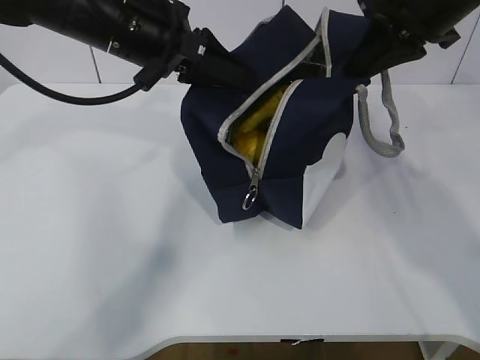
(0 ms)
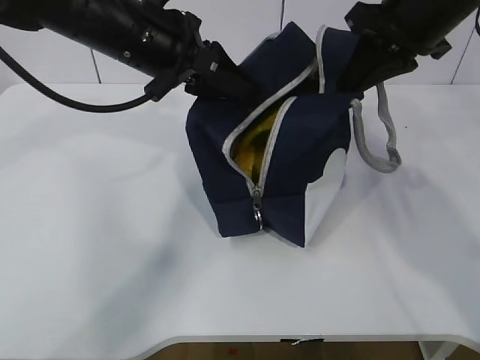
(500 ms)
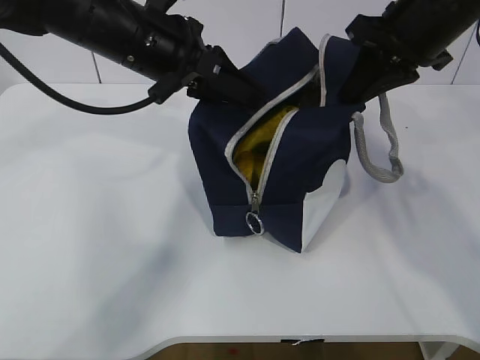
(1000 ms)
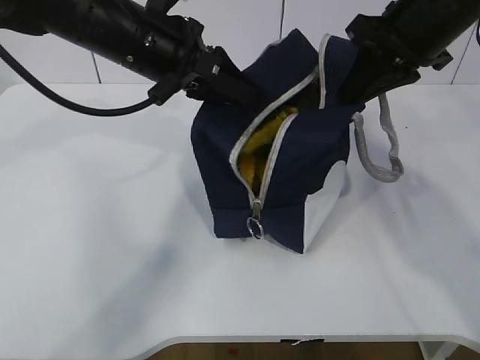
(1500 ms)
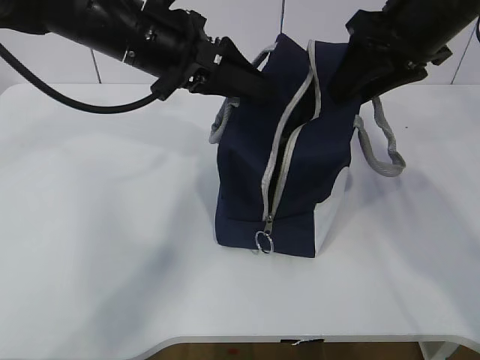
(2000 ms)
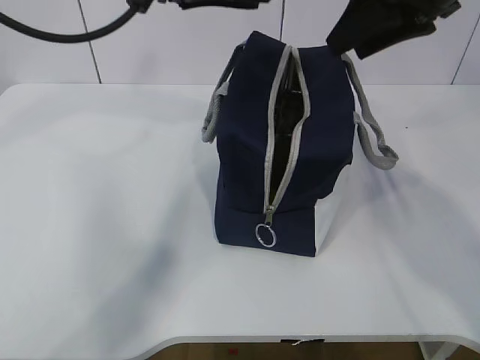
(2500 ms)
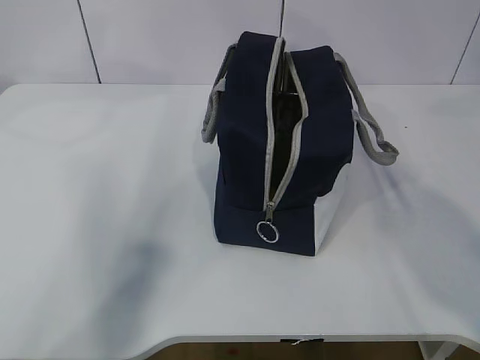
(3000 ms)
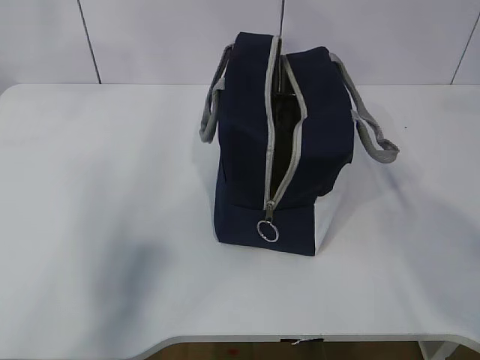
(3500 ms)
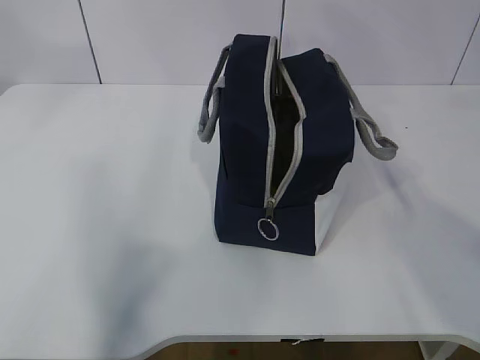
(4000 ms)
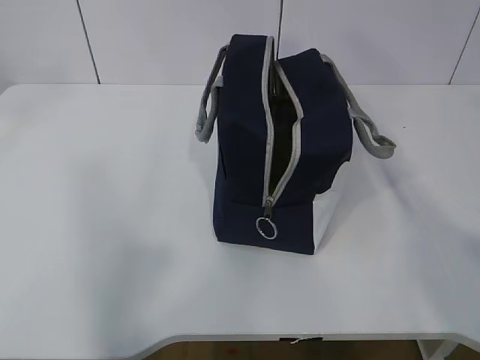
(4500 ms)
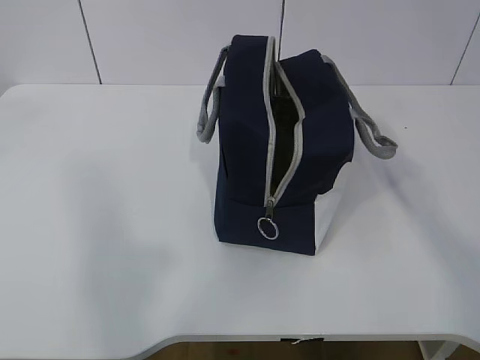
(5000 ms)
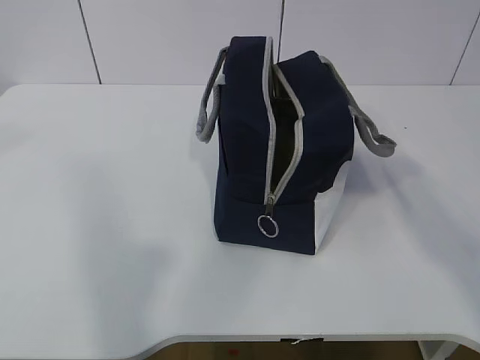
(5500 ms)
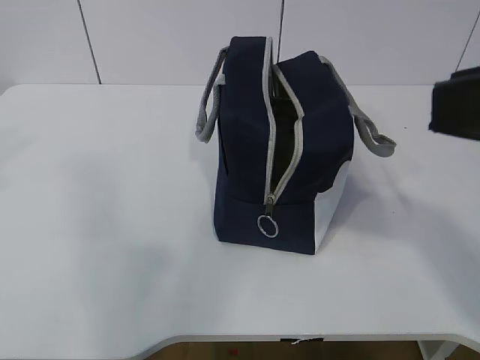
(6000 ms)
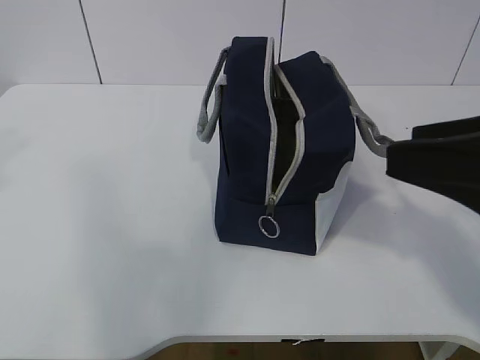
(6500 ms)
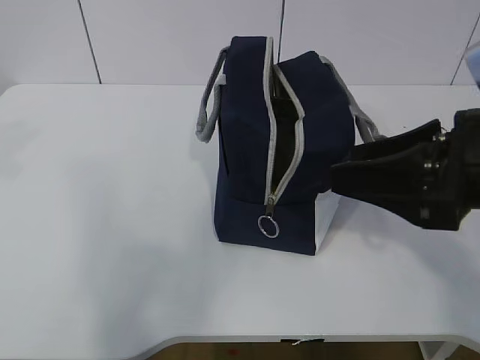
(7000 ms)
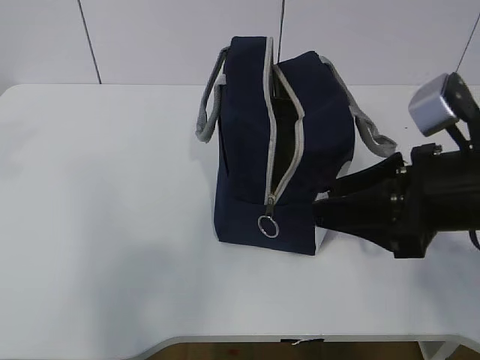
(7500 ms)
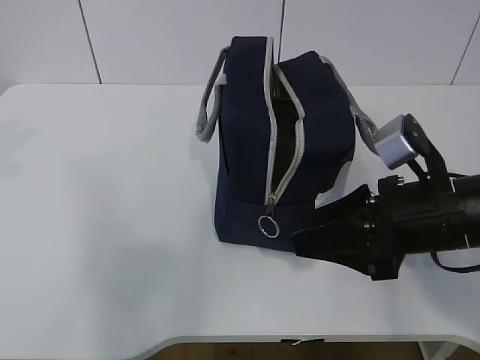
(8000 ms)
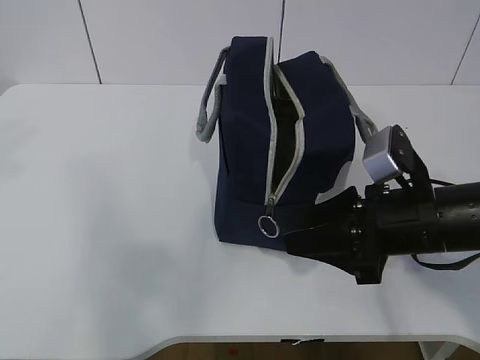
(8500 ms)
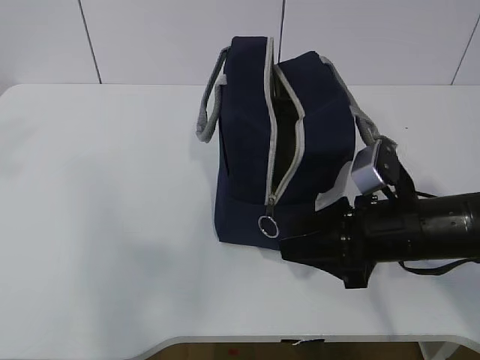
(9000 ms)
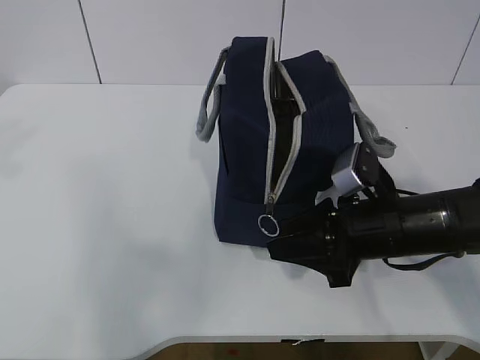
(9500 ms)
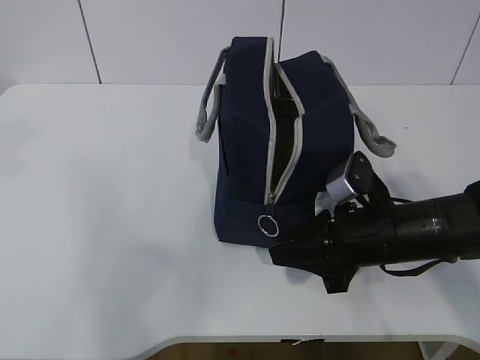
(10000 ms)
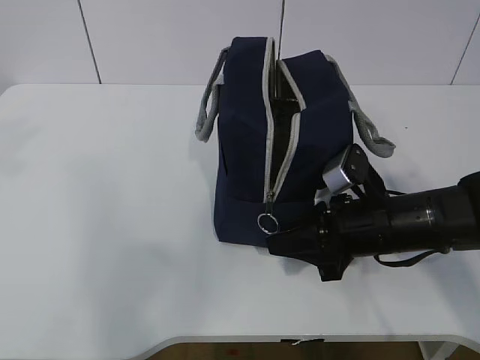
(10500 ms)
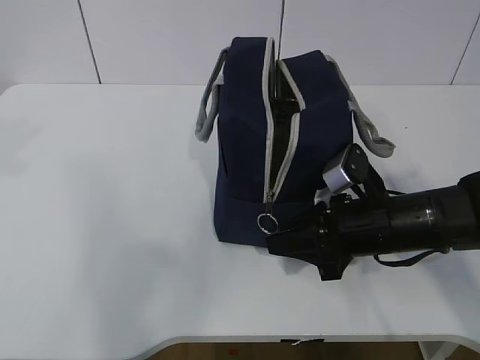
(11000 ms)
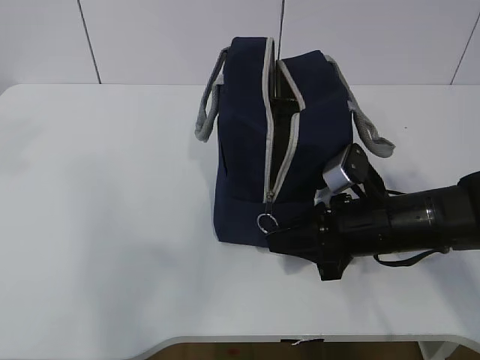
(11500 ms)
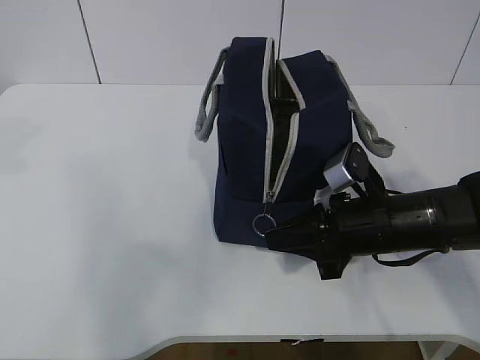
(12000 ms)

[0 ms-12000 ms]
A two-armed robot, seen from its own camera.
0 ms to 2000 ms: The right gripper opens; the left gripper opens its fingers.
2000 ms to 4000 ms: The right gripper travels upward and backward by some 15 cm, while the left gripper goes approximately 30 cm upward, to the left and backward.
4000 ms to 6000 ms: Both grippers travel together backward and downward, about 15 cm.
6000 ms to 8000 ms: The right gripper travels downward and forward by about 20 cm.
8000 ms to 10000 ms: The right gripper shifts approximately 5 cm downward.
10000 ms to 12000 ms: Both grippers stay put.

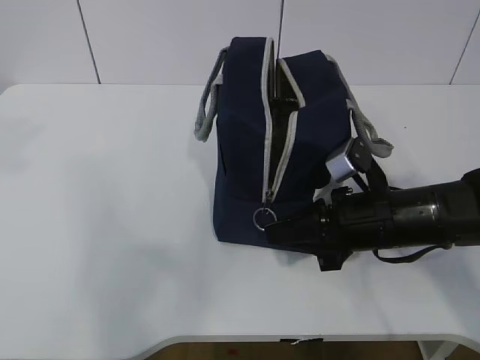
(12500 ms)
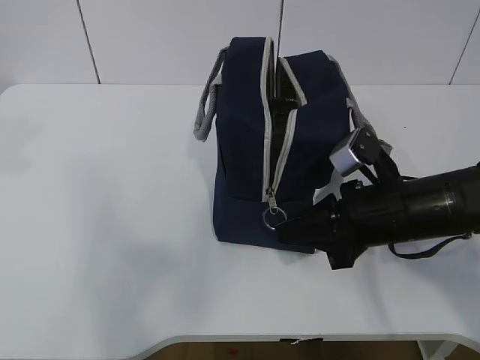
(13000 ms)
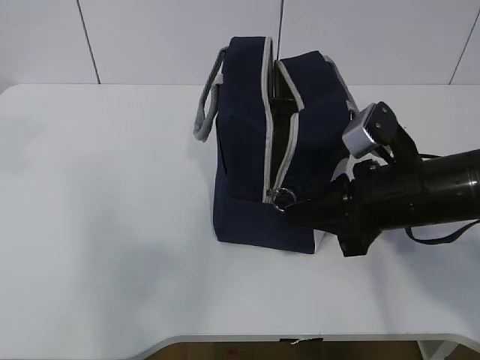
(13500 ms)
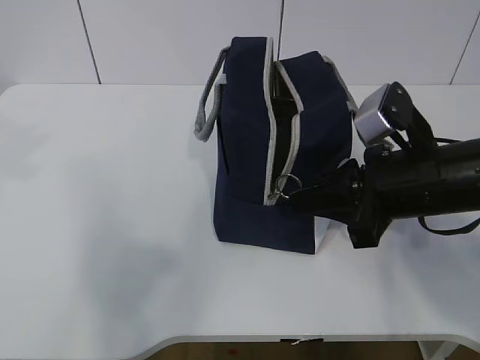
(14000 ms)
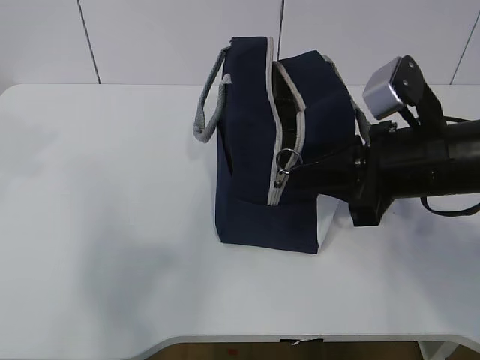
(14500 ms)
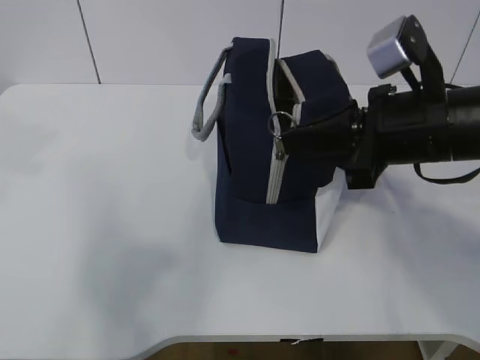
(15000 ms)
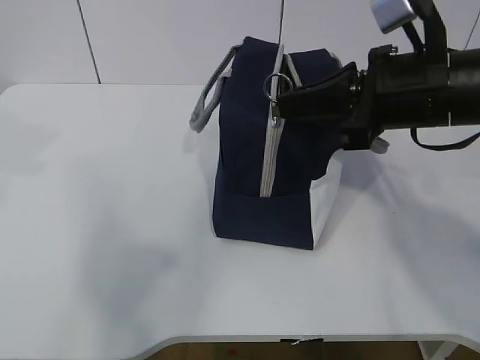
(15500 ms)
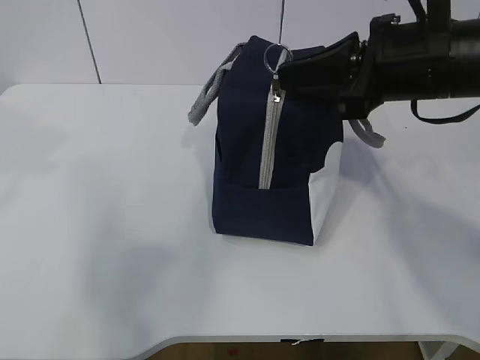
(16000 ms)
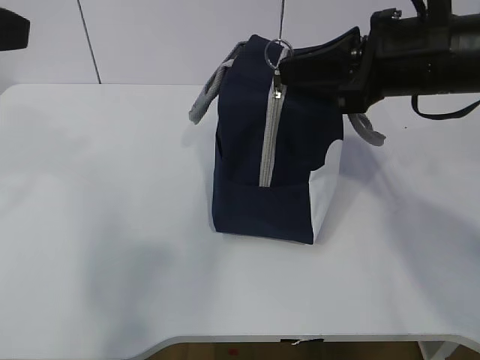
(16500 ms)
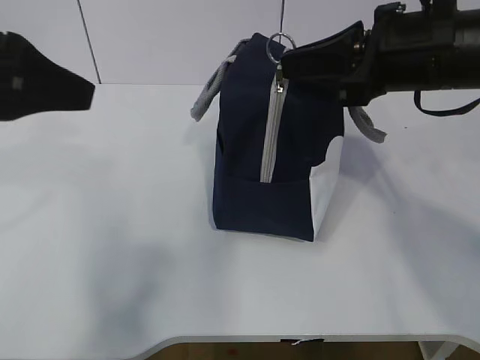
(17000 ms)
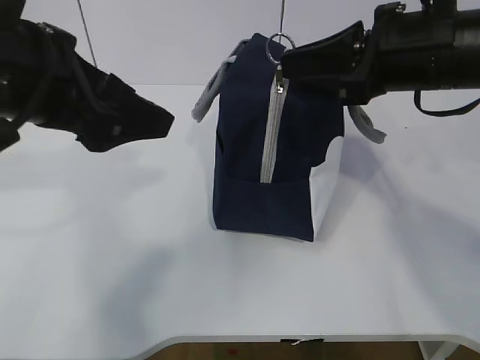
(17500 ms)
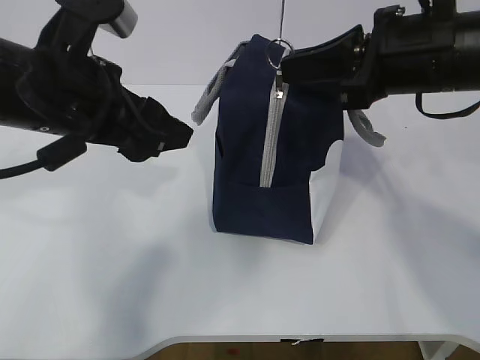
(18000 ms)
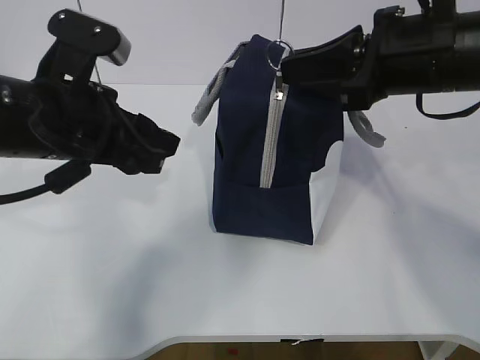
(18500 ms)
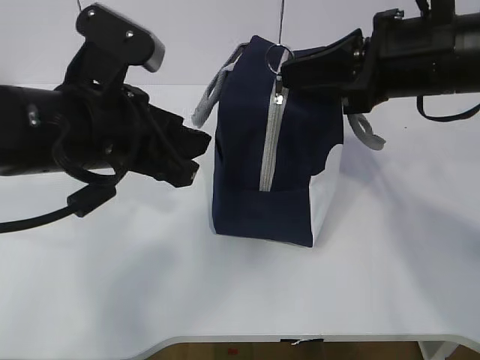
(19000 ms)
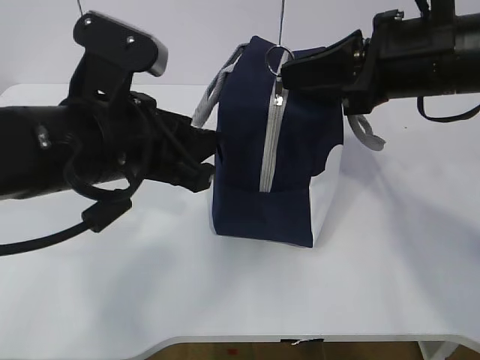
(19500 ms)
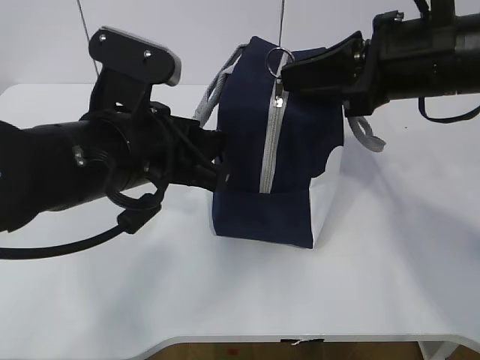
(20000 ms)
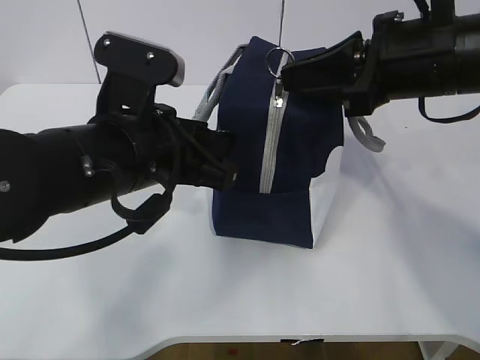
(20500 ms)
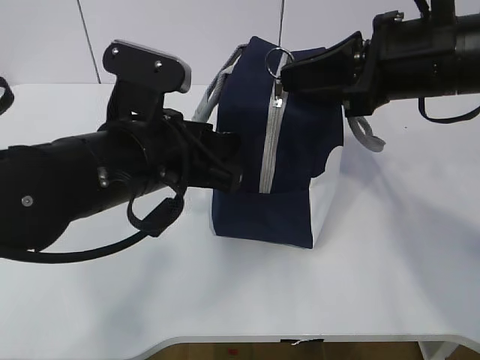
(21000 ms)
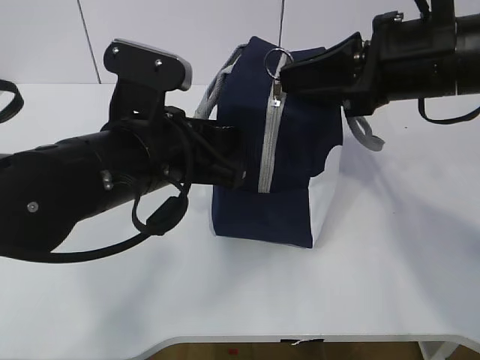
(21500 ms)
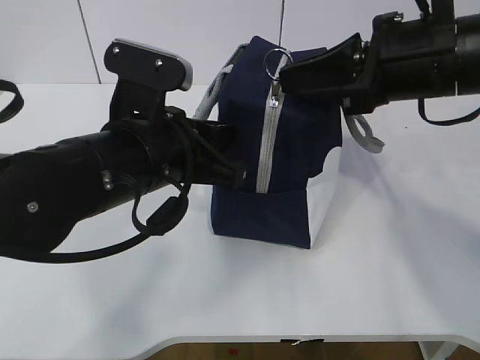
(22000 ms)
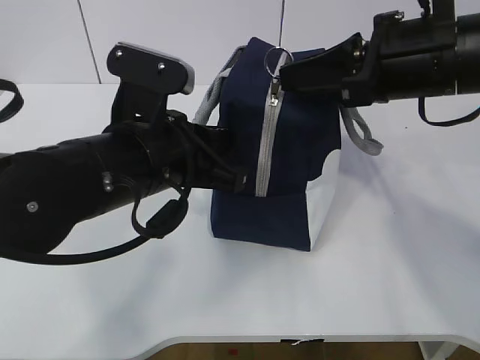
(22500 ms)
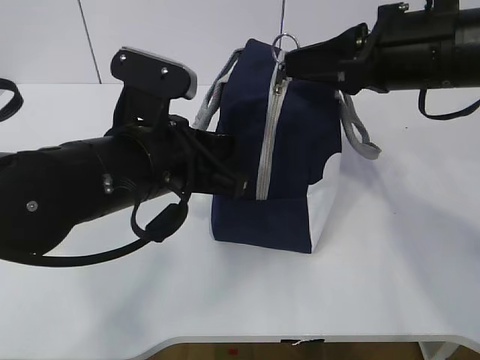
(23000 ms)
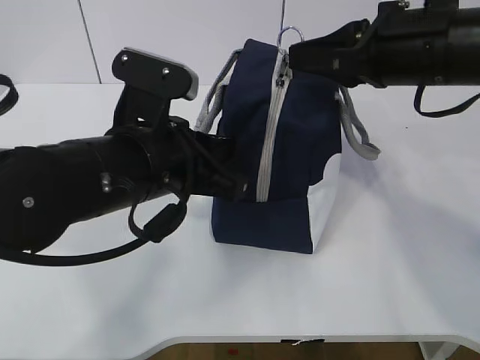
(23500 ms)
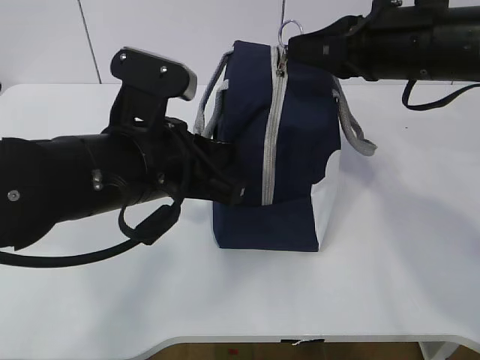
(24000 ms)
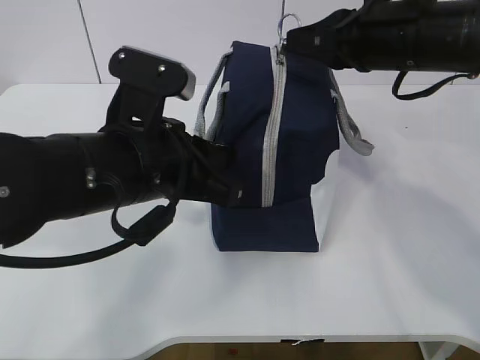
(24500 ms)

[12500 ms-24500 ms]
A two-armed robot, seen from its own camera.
Step, 12500 ms to 15000 ms: Grab the lunch bag with your left hand.
12500 ms to 14500 ms: The right gripper is displaced upward by approximately 10 cm.
14500 ms to 16500 ms: The right gripper is displaced upward by some 5 cm.
16500 ms to 18500 ms: The left gripper moves downward, to the right and forward, about 15 cm.
18500 ms to 20500 ms: The left gripper heads to the right, covering roughly 5 cm.
20500 ms to 22500 ms: The left gripper closes up.
22500 ms to 24500 ms: The right gripper is displaced forward by roughly 5 cm.

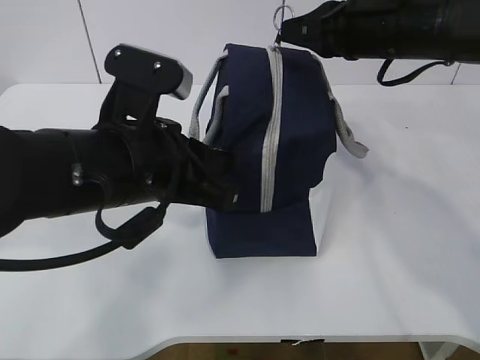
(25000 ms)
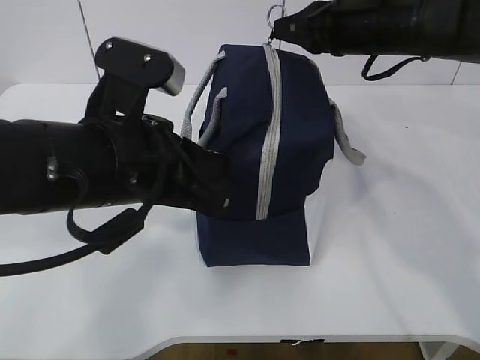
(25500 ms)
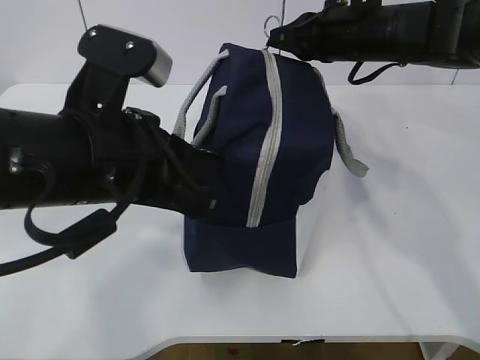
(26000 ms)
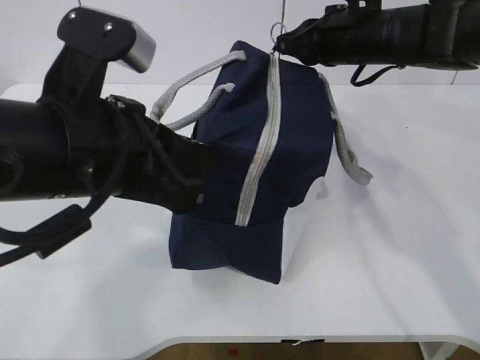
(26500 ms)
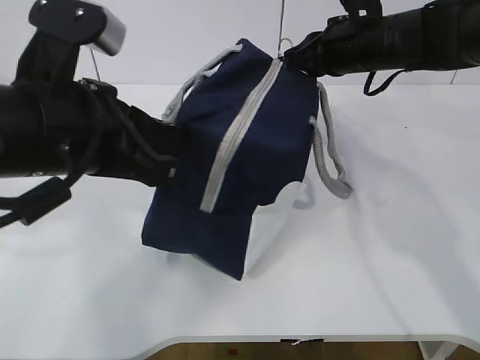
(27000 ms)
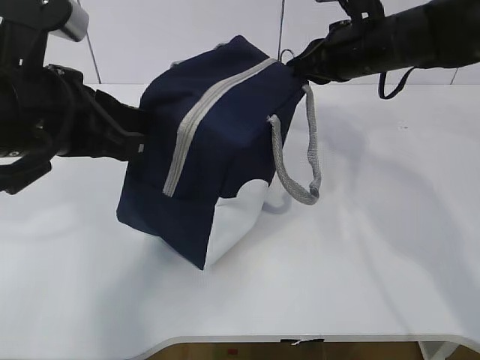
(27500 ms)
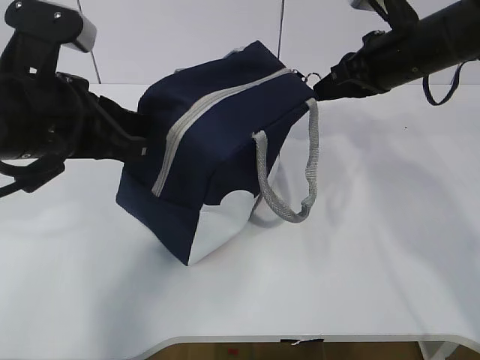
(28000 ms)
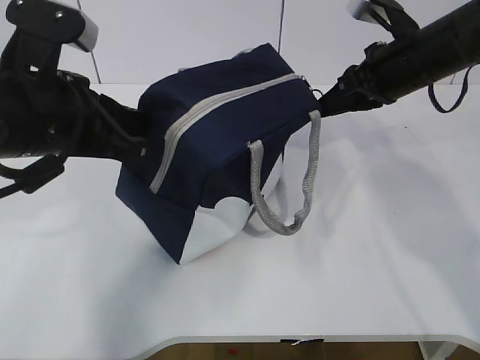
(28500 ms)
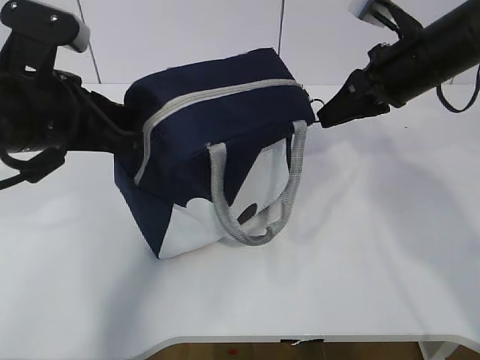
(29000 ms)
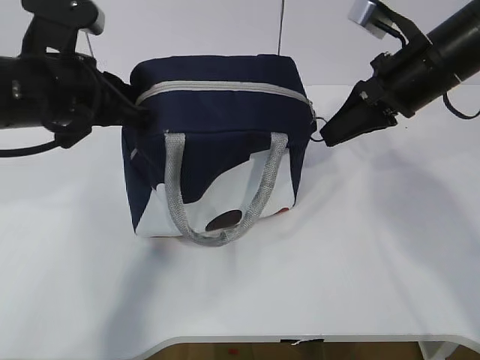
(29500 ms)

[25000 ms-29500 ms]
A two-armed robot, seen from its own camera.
25000 ms to 27000 ms: The right gripper shifts some 5 cm forward; the left gripper ends up approximately 5 cm from where it was.
27000 ms to 29500 ms: The right gripper shifts some 5 cm backward. Meanwhile the left gripper travels forward by roughly 10 cm.
